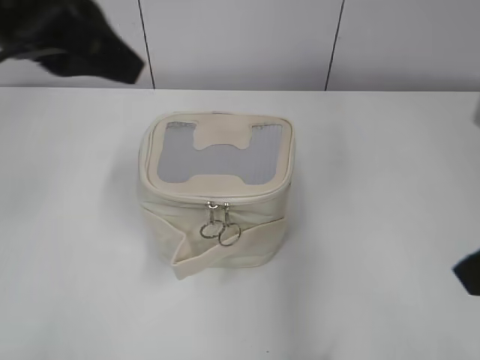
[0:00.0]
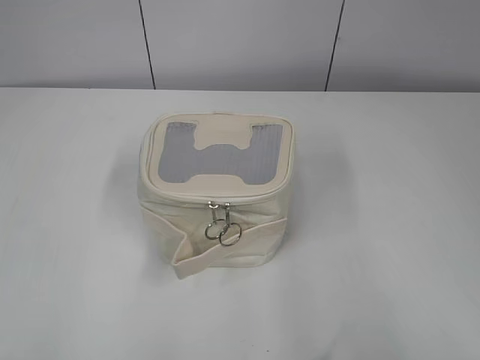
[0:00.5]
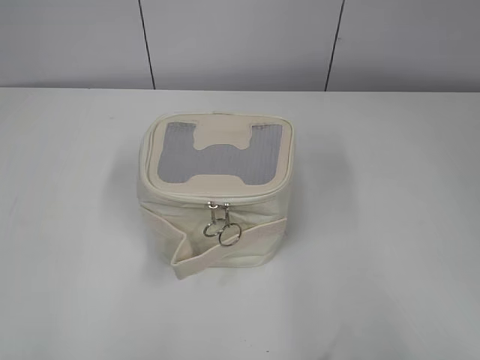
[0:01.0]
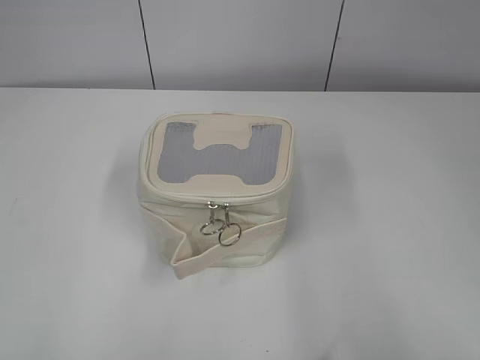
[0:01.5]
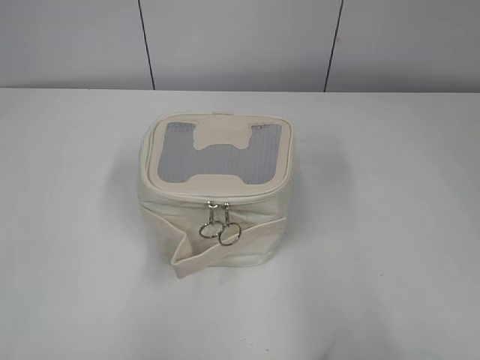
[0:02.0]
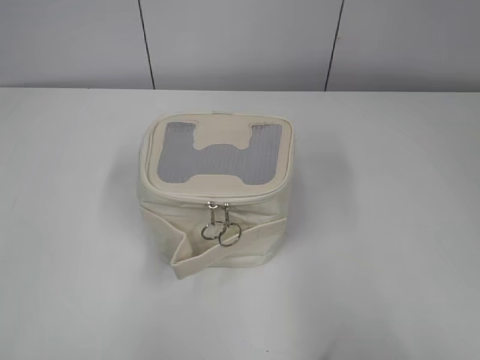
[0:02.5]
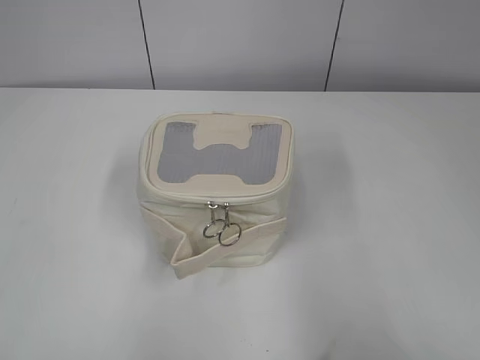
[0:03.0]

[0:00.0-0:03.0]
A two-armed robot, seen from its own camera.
0:00.0 to 0:01.5: The right gripper is displaced backward and to the right by roughly 15 cm, while the left gripper goes approximately 30 cm backward and to the left.

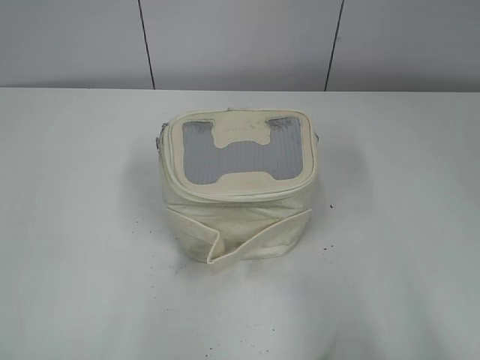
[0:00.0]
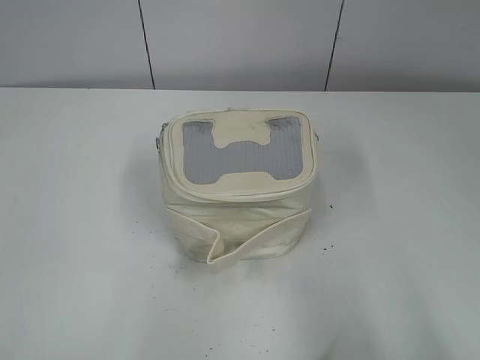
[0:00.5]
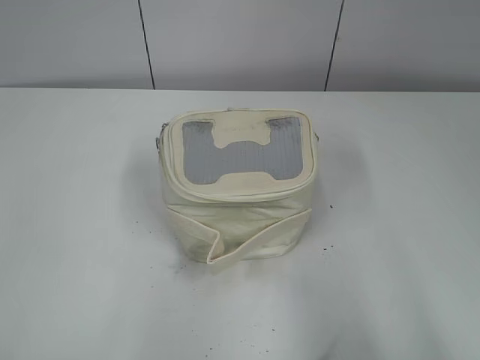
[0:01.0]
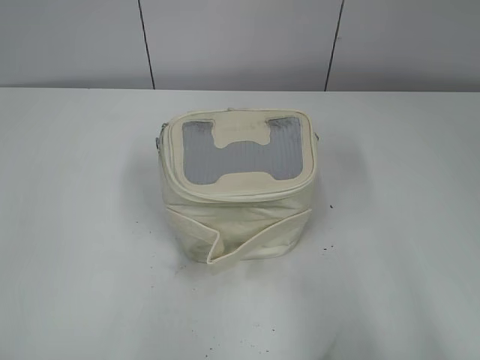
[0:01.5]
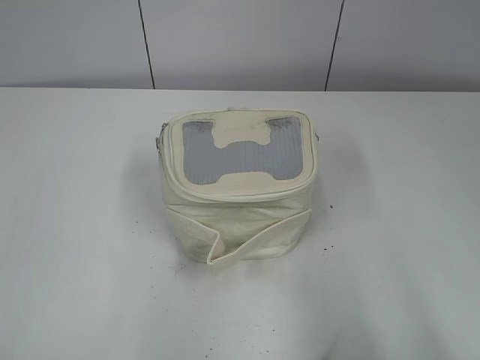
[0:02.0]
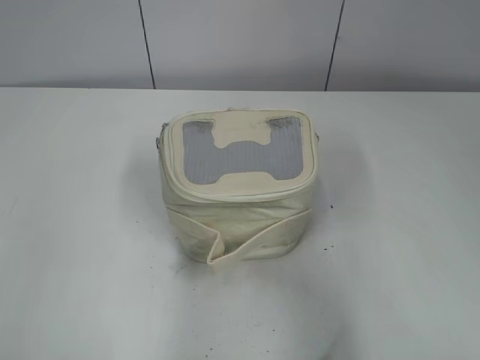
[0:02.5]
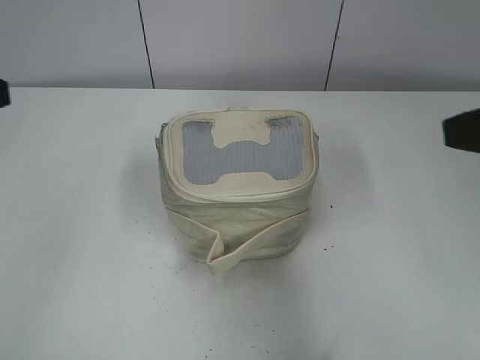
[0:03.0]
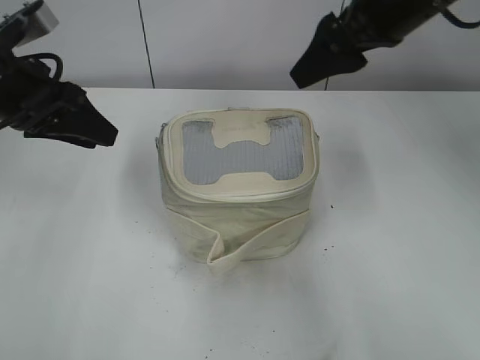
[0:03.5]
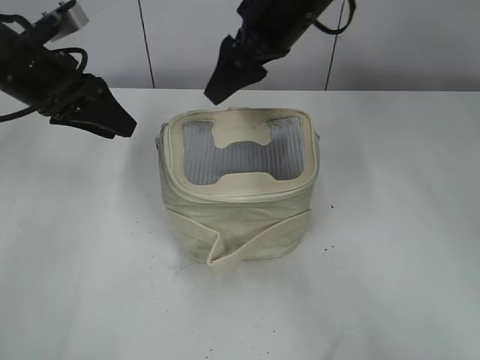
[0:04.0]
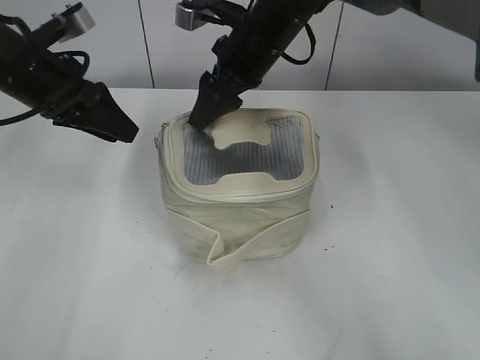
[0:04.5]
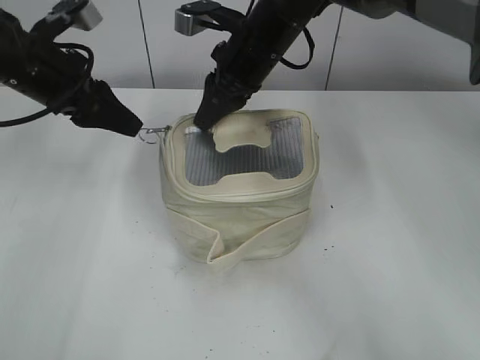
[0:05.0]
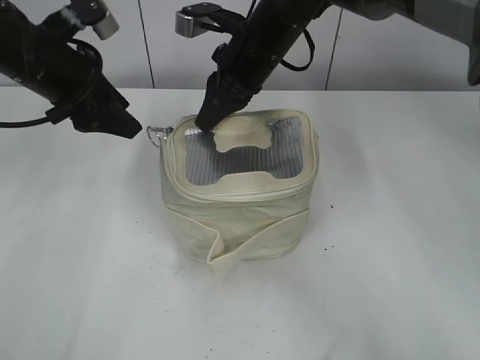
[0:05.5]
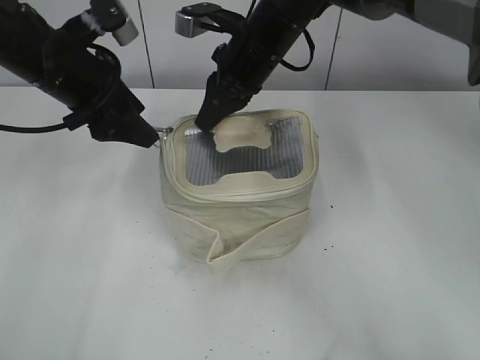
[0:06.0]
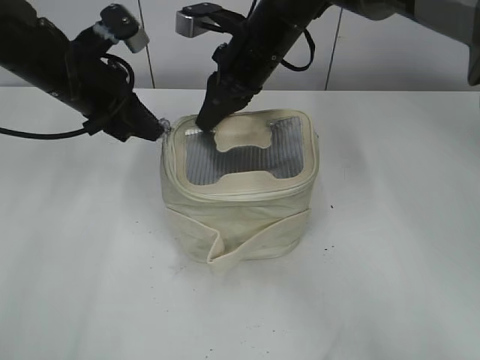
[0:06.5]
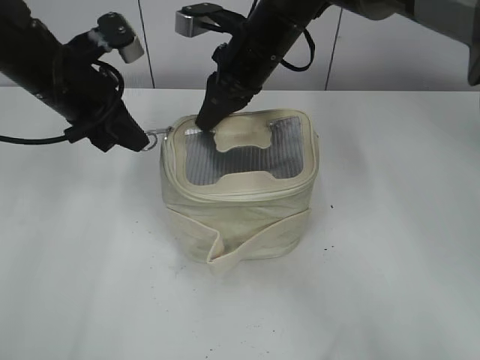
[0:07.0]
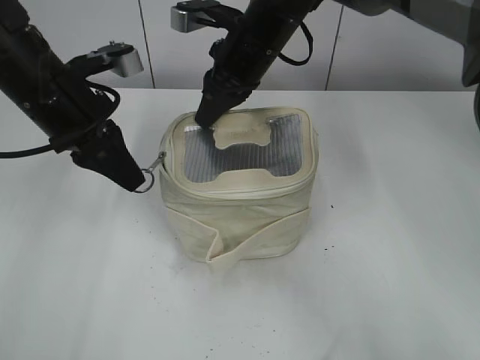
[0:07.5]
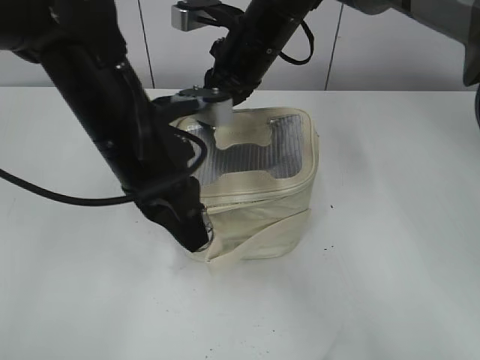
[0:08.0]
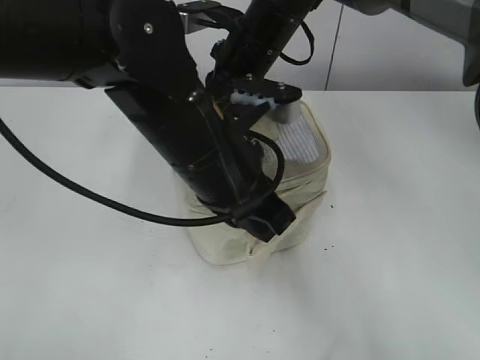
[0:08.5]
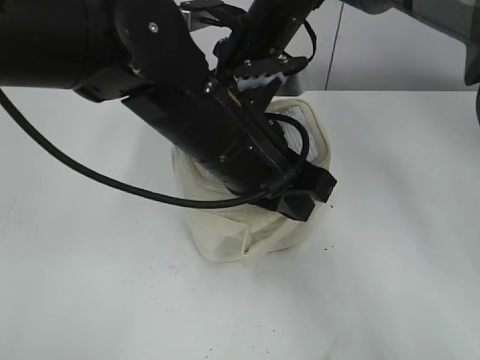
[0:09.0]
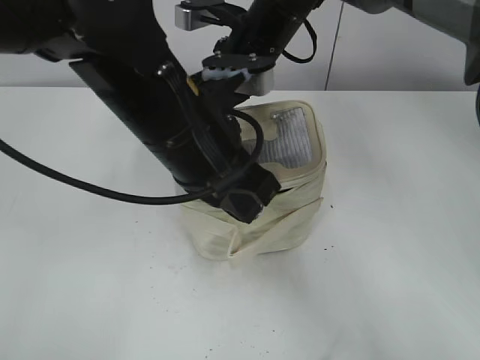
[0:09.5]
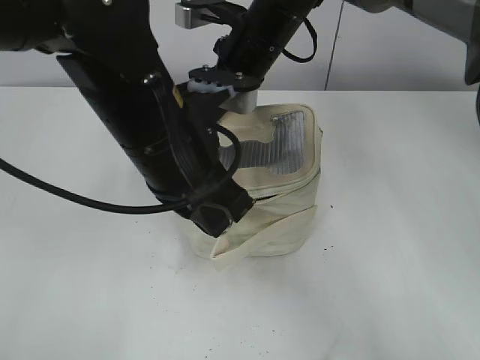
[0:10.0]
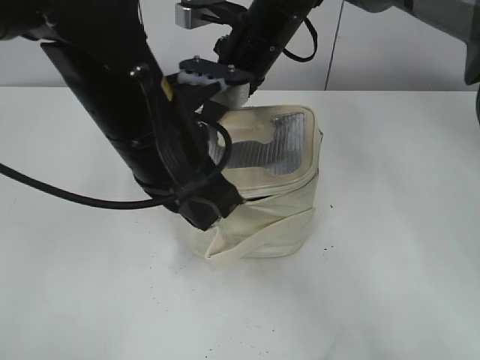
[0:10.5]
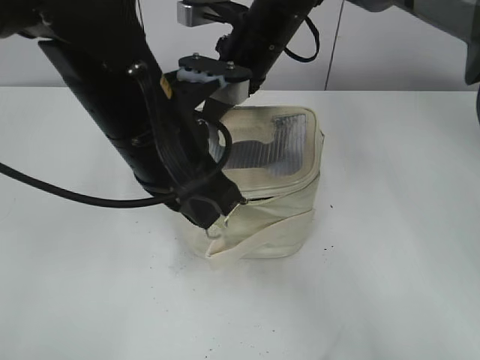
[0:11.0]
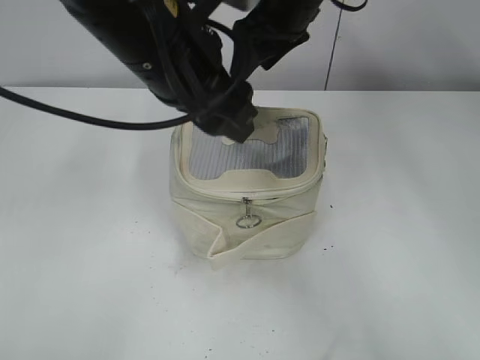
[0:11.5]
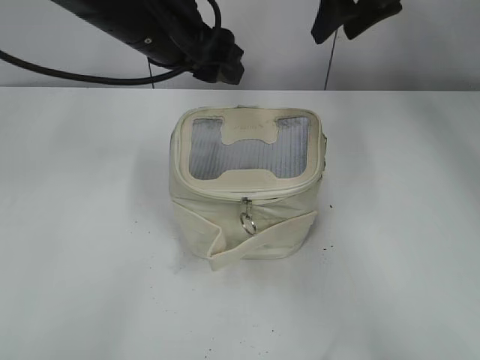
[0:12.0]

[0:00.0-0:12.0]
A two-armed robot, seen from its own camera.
Step, 0:00.0 to 0:10.5: Zip up the bag with your left hand.
0:02.0 to 0:04.0: The right gripper shifts about 50 cm forward and to the left; the left gripper travels forward by some 35 cm.
0:04.0 to 0:06.0: The right gripper is displaced downward by approximately 5 cm, and closes its fingers. Meanwhile the left gripper opens up.
0:06.0 to 0:08.0: The left gripper moves backward and to the right, some 15 cm, and closes its fingers.
0:10.0 to 0:12.0: The left gripper is displaced forward by about 10 cm, and opens its fingers, while the right gripper travels to the right and upward by about 15 cm, and opens.

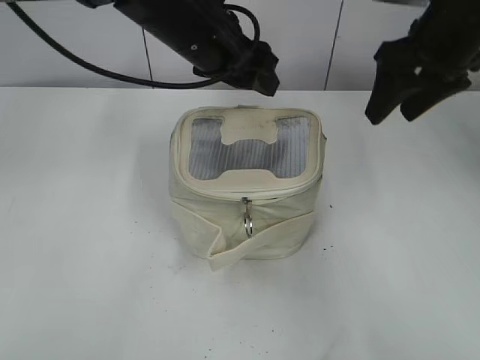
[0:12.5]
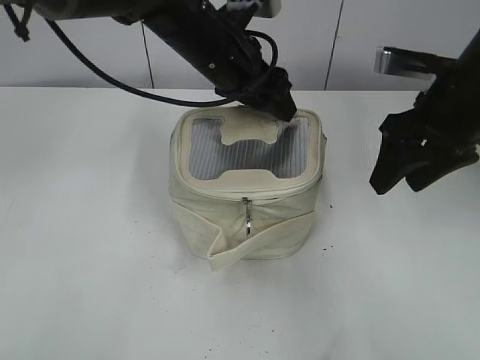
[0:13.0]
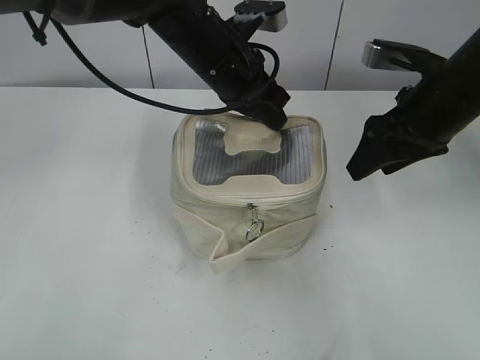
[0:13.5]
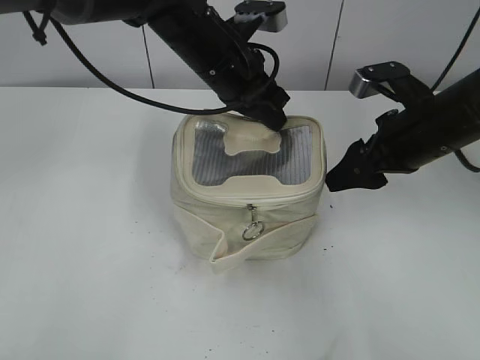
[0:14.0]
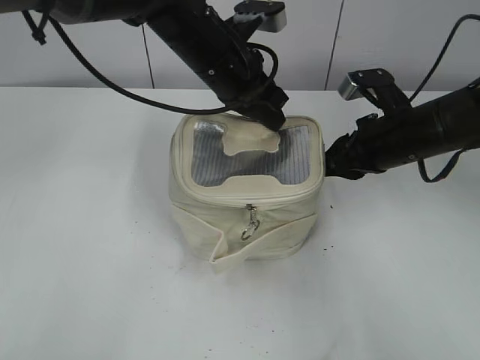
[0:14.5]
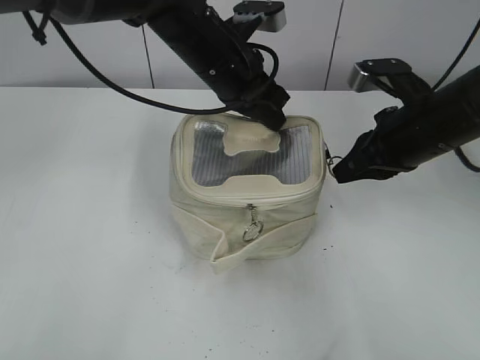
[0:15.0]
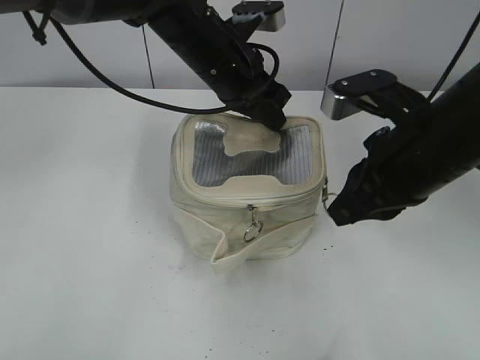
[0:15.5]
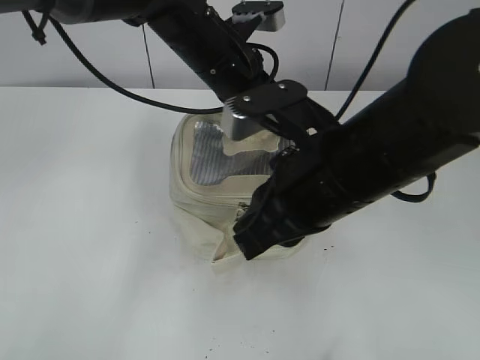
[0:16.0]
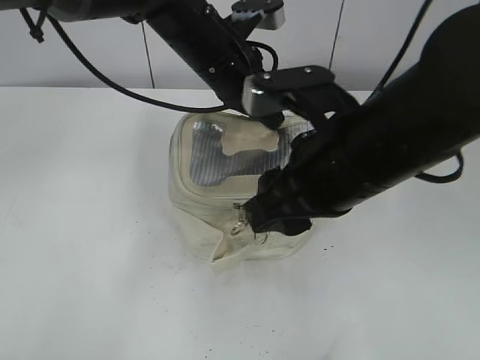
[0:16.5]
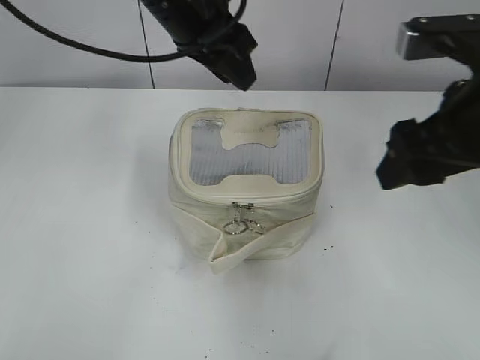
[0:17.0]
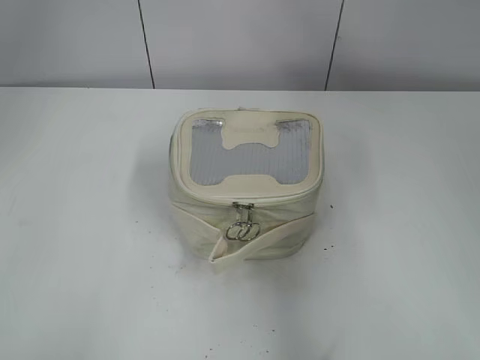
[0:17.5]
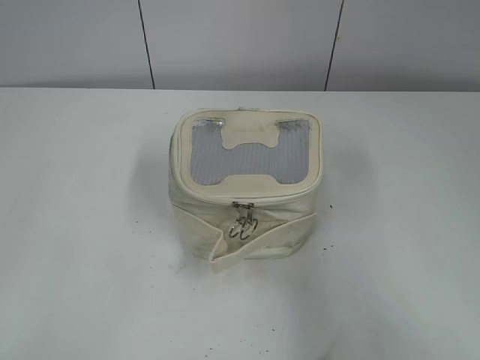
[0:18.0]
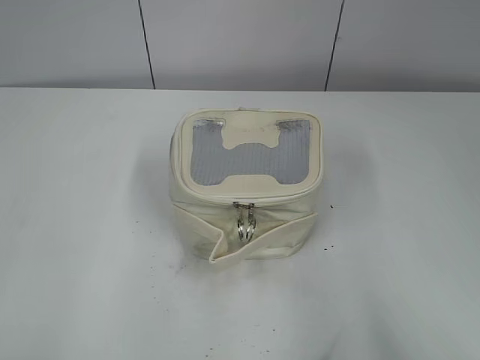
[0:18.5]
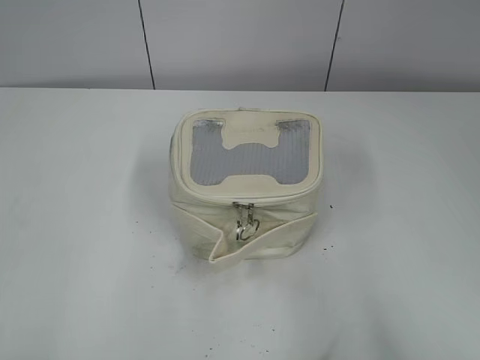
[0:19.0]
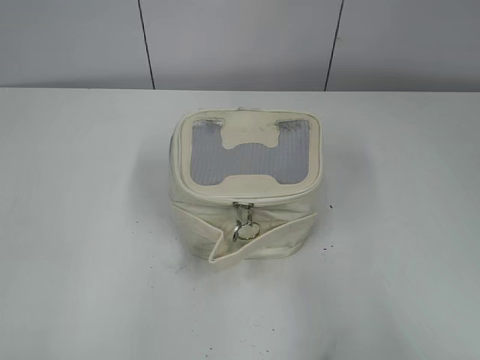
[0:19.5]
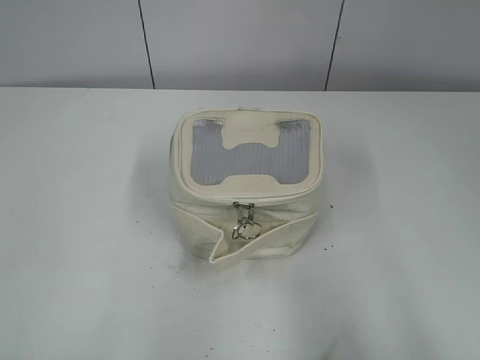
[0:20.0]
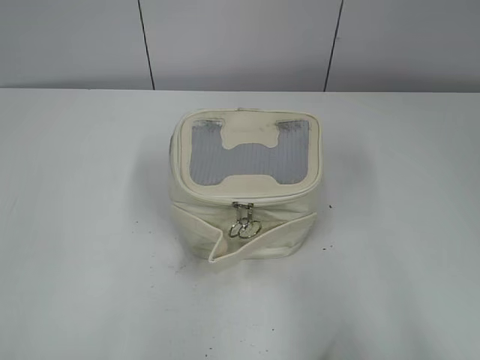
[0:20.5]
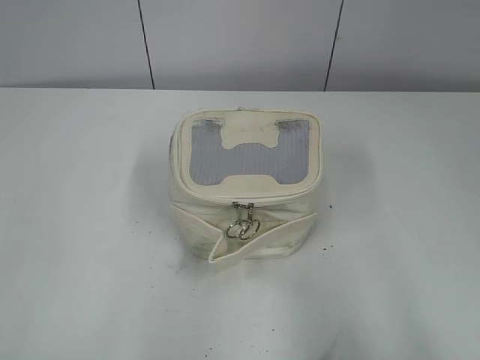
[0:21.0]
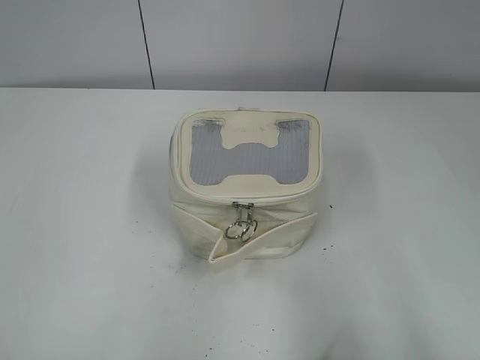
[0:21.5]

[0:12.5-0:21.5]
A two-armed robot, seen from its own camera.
Step, 0:12.5 to 0:16.5: Zip up the bag with your right hand.
0:12.5 to 0:14.5: The left gripper closes its fingers, while the right gripper moves downward, some 15 cm, and closes.
0:14.5 to 0:17.0: The right gripper shifts roughly 15 cm upward and backward, and opens its fingers. Meanwhile the left gripper is displaced upward by approximately 10 cm, and opens.
0:17.0 to 0:19.5: The left gripper heads backward and to the left, covering approximately 40 cm. The right gripper goes roughly 25 cm backward and to the right.

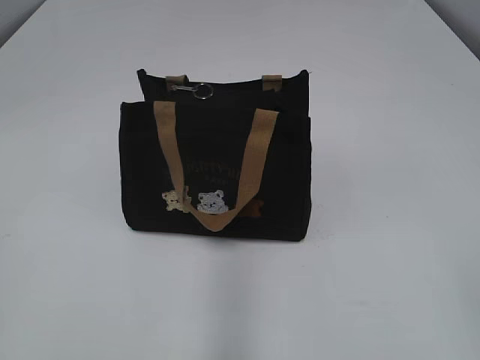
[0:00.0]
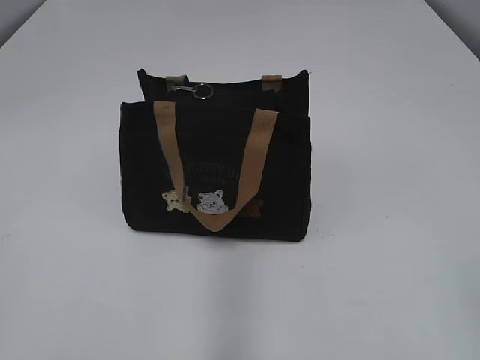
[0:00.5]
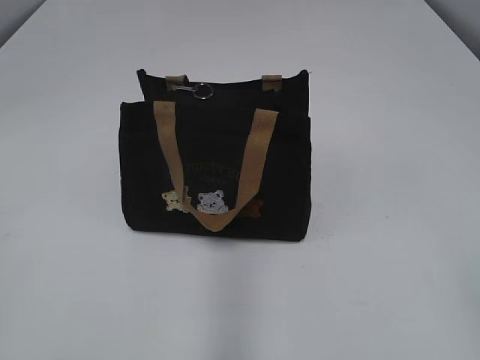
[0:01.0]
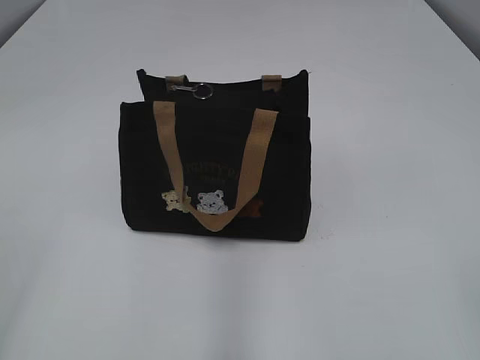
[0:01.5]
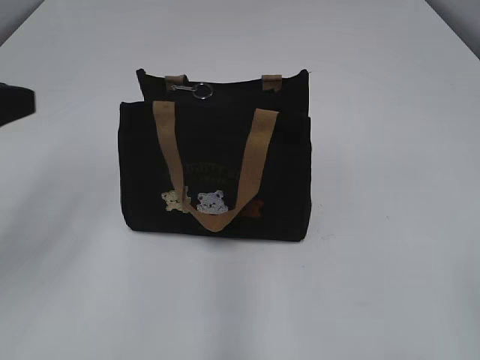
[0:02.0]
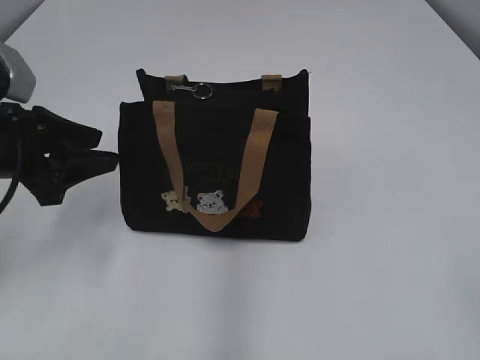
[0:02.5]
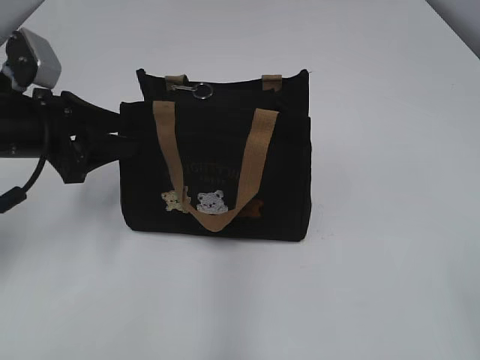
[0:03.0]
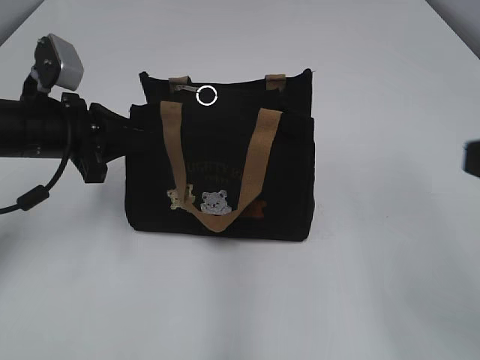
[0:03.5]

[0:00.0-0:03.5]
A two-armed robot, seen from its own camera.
0:02.0 to 0:03.5: The left gripper is displaced forward, downward and to the right by some 15 cm, and closes, while the right gripper is displaced forward by some 10 cm.
